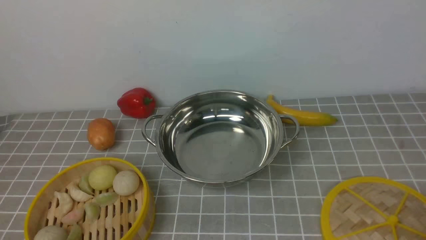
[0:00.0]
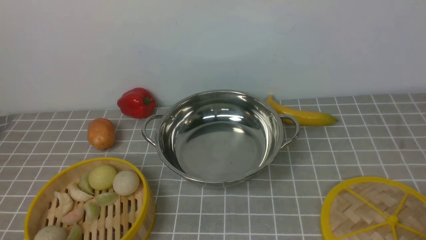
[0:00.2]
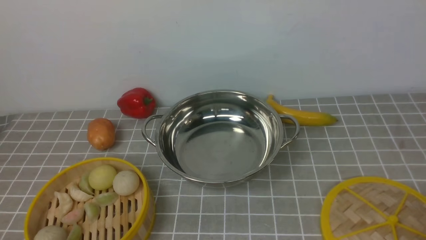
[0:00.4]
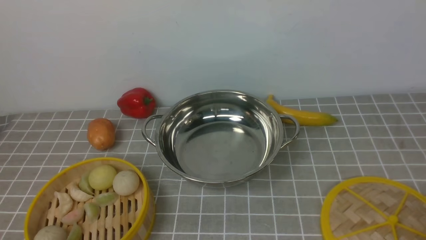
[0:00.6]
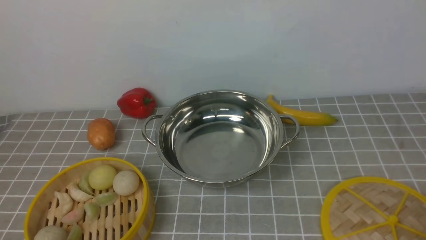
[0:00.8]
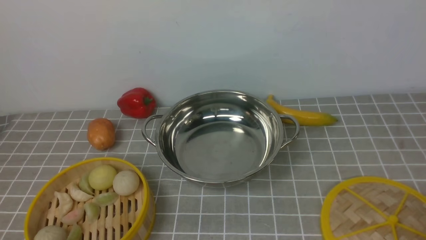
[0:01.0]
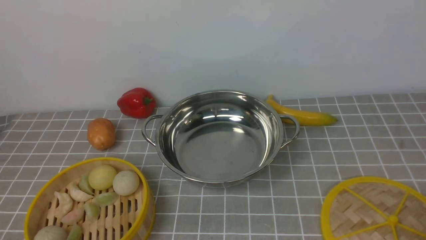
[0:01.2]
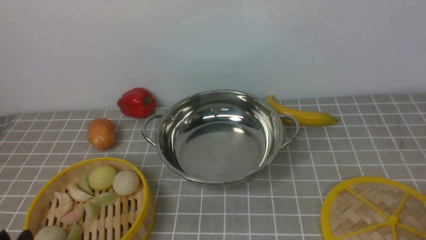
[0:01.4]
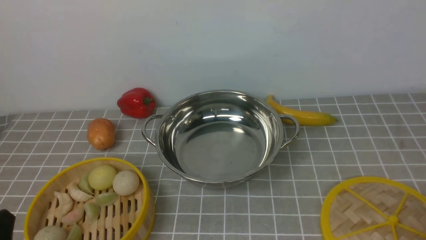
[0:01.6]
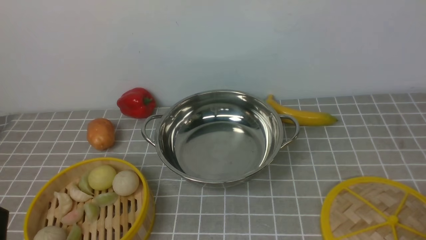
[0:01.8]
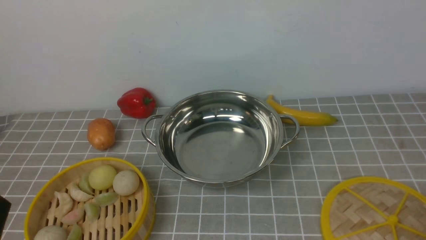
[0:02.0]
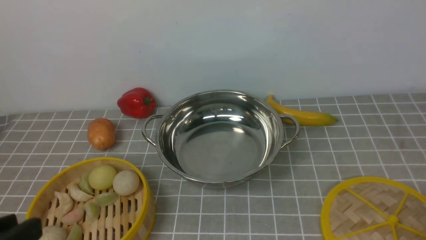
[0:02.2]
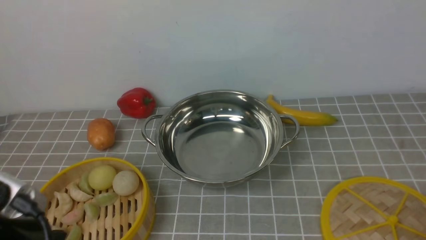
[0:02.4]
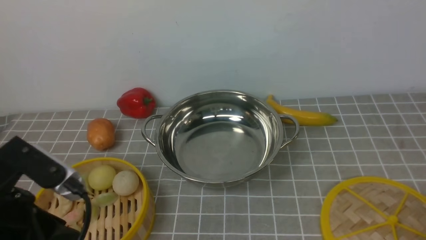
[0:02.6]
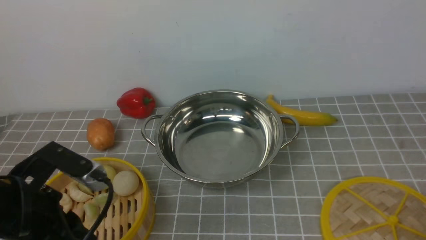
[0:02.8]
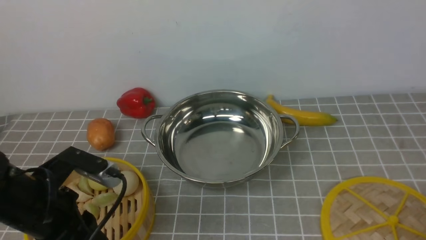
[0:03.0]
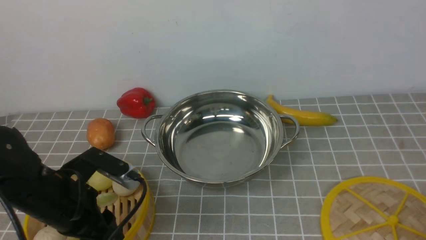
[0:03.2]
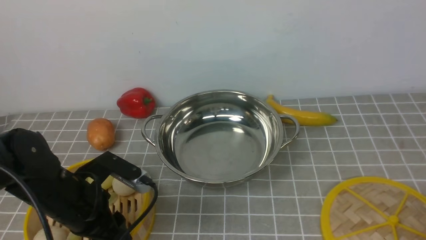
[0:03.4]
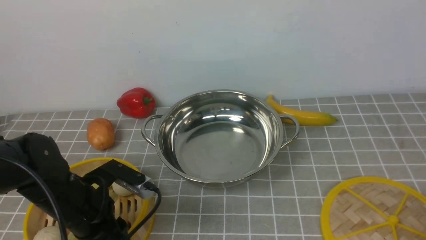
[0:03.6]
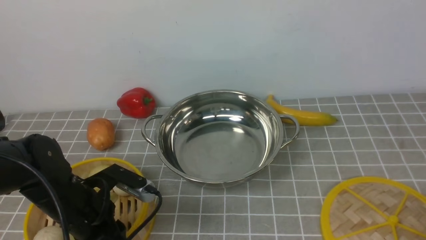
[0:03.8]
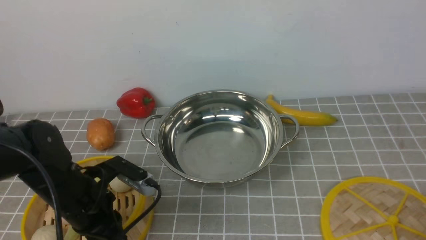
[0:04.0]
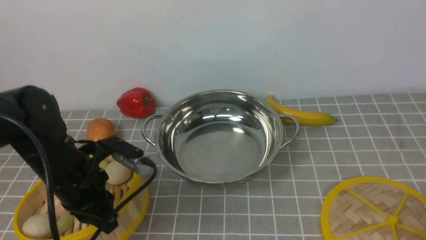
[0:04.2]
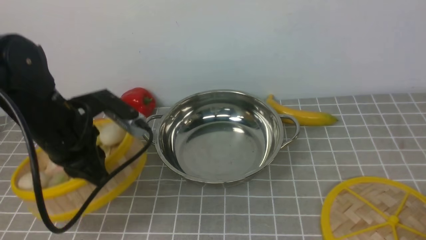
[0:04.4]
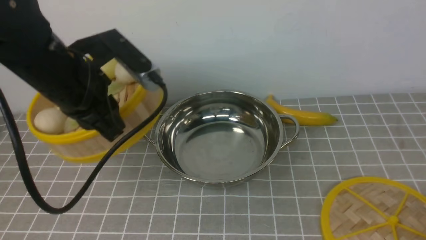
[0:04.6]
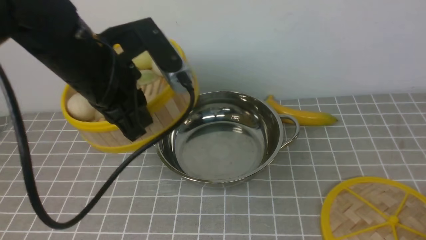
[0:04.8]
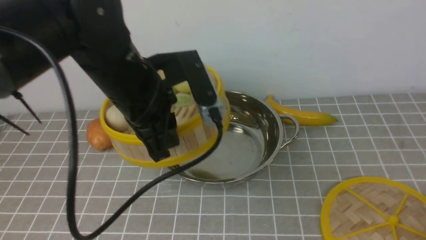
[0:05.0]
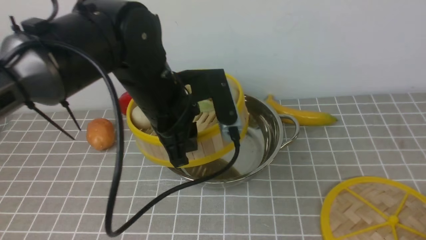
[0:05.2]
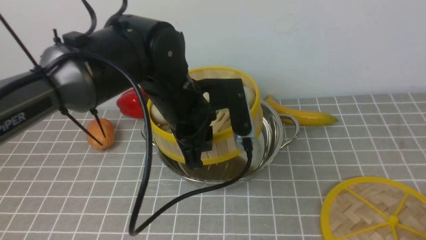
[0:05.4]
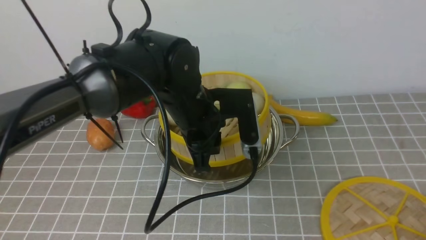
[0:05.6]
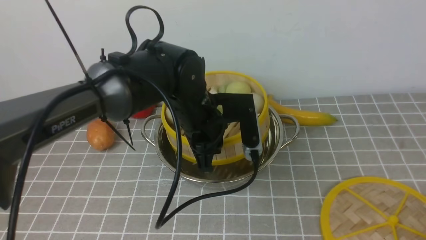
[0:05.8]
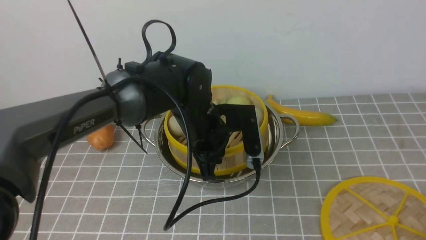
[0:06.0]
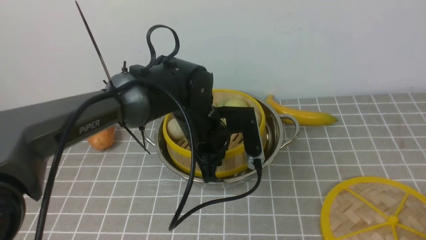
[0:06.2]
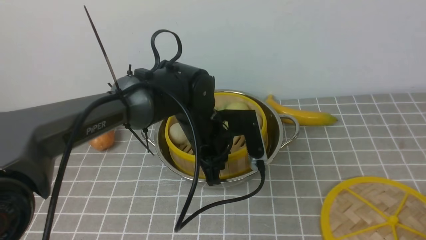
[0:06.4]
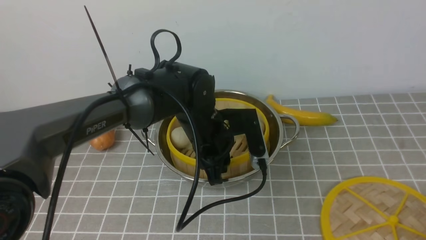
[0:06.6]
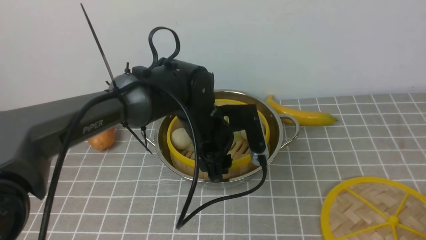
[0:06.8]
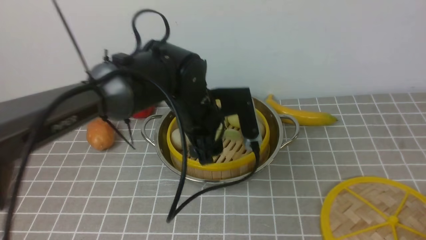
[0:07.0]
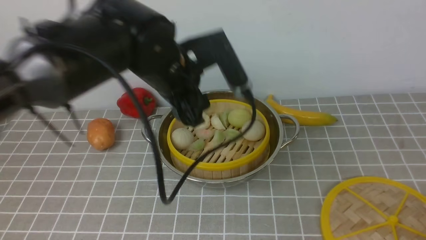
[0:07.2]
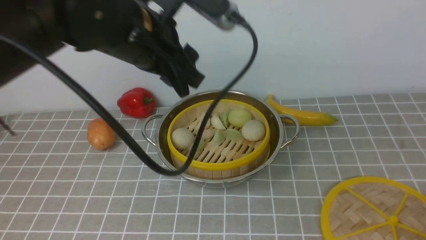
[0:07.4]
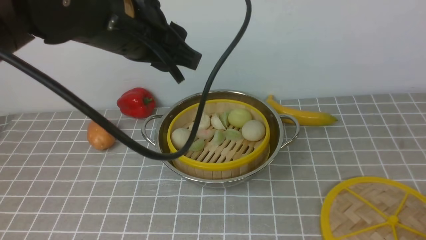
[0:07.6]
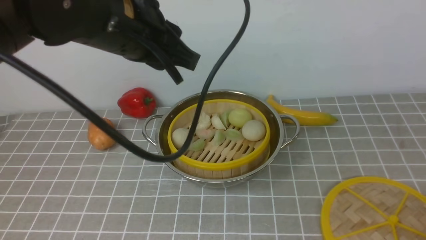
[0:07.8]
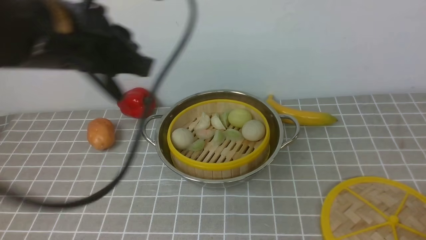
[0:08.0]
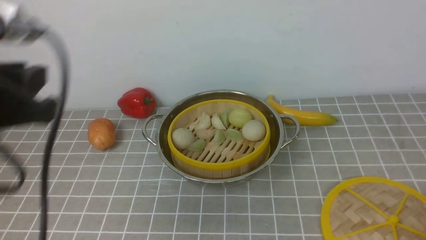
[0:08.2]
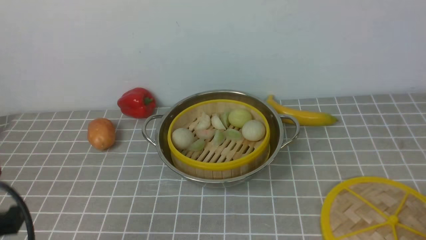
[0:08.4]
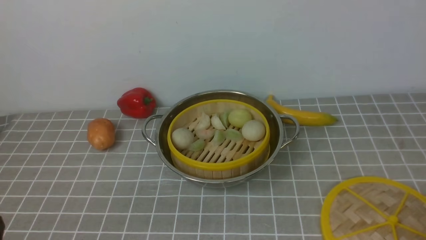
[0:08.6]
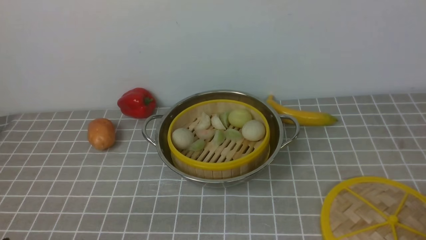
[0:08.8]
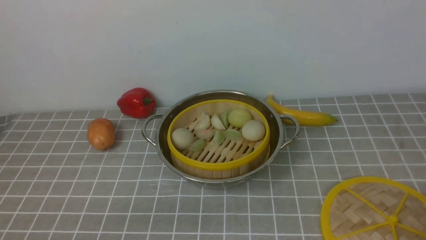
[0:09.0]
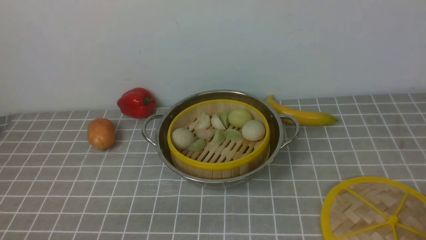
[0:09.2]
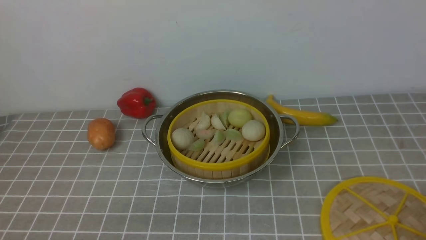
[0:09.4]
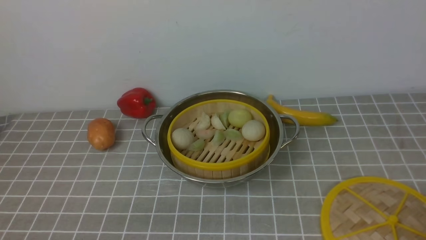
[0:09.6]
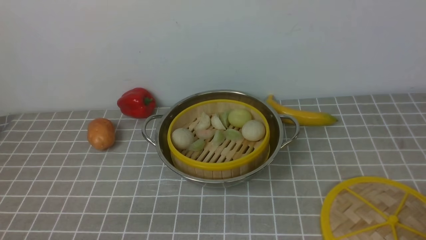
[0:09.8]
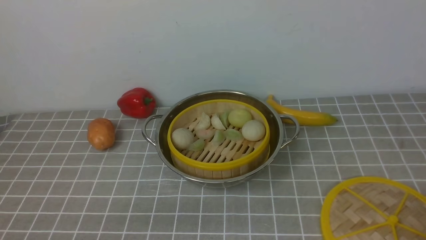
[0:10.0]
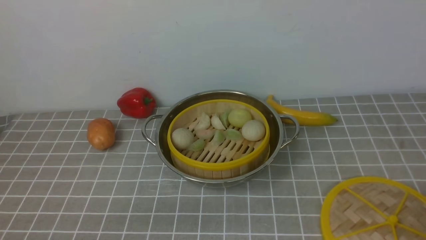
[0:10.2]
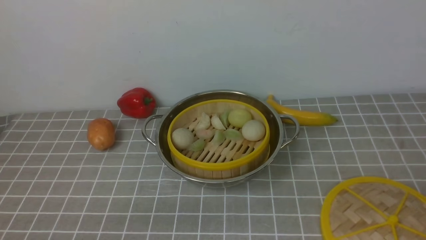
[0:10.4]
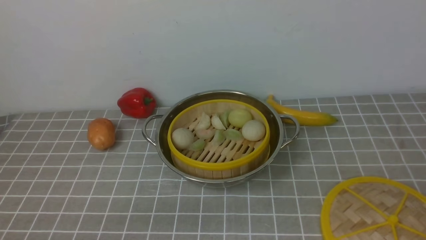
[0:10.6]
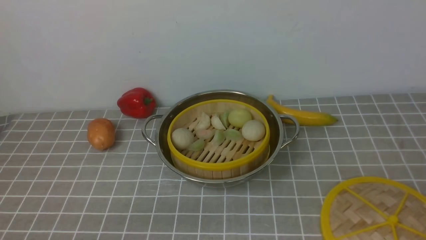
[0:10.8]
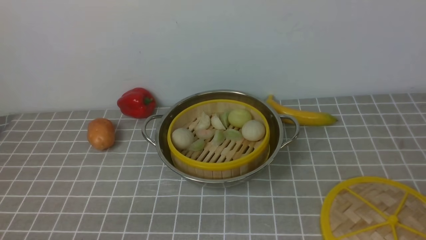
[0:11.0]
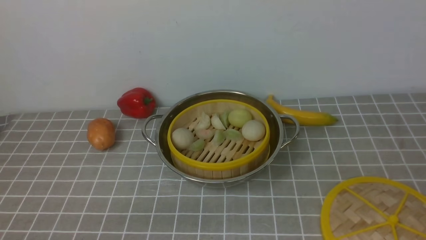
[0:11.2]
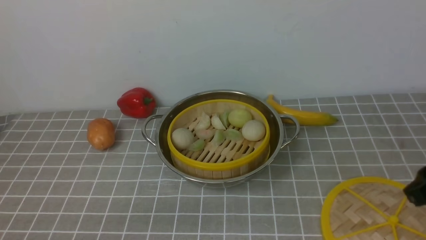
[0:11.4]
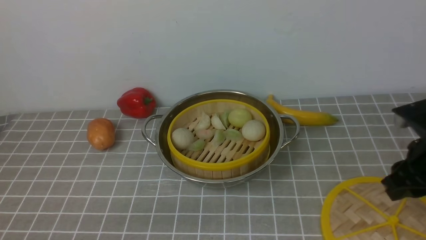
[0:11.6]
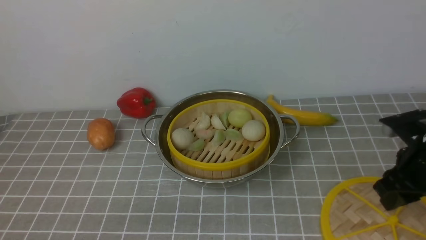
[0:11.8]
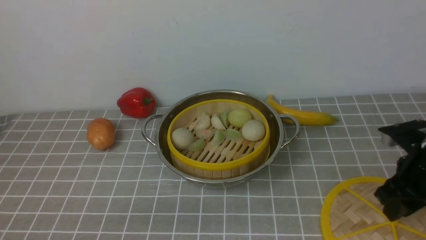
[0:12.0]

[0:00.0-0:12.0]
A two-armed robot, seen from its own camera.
Task of the whole recording: place the steamer in the pot on the grey tablecloth, and put the lid on the steamer.
Step, 0:00.0 to 0:04.0: use the left arm to lift the steamer closest to it.
Step, 0:04.4 to 0:06.8: use the left arm to put the steamer into the iron steamer pot in the middle.
0:01.6 to 0:03.0: The left gripper heads forward, covering some 15 cm.
0:03.0 to 0:04.4: The left gripper travels forward and upward by roughly 10 cm, and closes up.
0:04.4 to 0:06.0: The left gripper shifts approximately 15 cm to the right and downward.
0:06.0 to 0:07.6: The left gripper shifts approximately 20 cm upward, and opens its fingers.
0:07.6 to 0:09.0: The left gripper travels backward, downward and to the left by roughly 35 cm.
0:10.4 to 0:12.0: The right gripper goes some 25 cm forward.

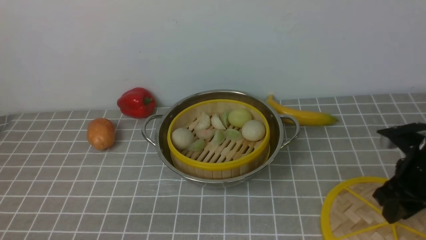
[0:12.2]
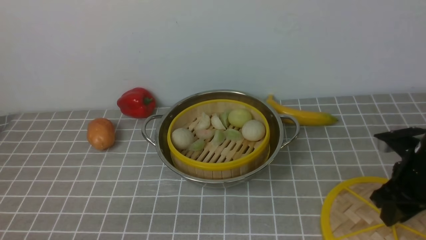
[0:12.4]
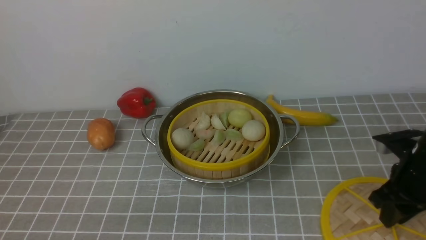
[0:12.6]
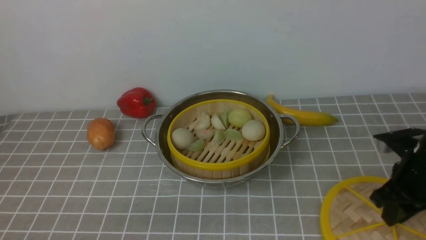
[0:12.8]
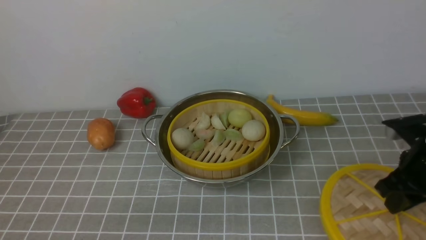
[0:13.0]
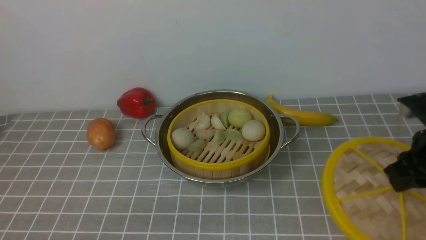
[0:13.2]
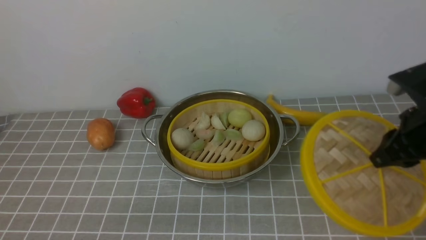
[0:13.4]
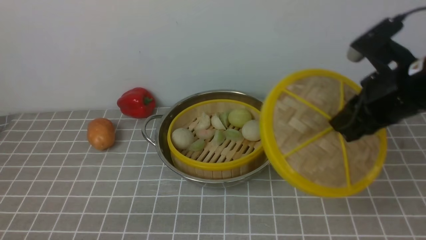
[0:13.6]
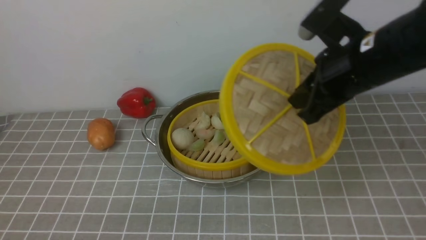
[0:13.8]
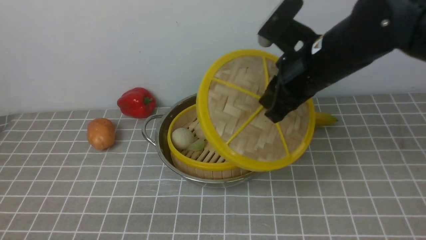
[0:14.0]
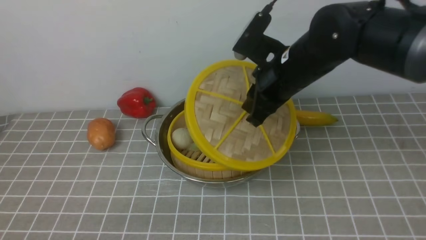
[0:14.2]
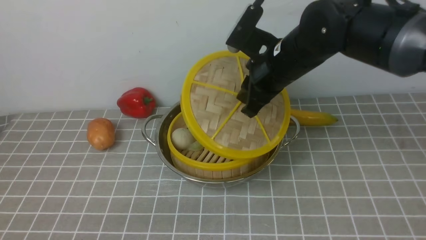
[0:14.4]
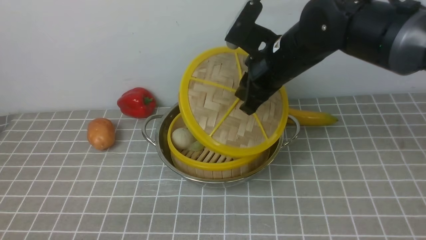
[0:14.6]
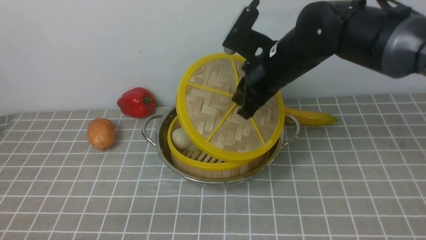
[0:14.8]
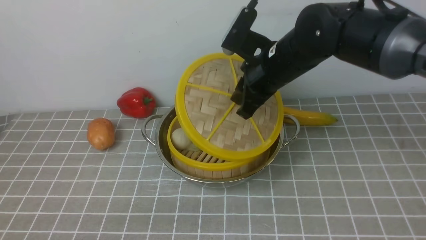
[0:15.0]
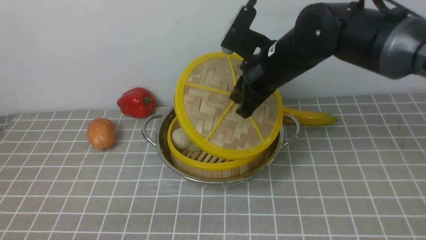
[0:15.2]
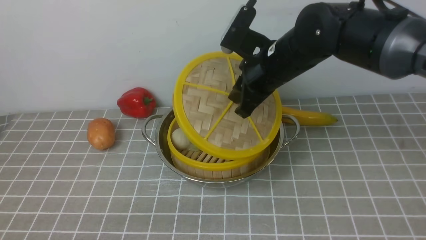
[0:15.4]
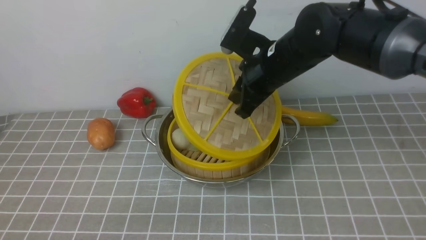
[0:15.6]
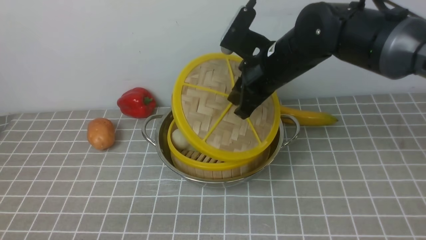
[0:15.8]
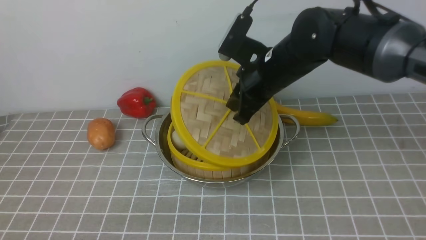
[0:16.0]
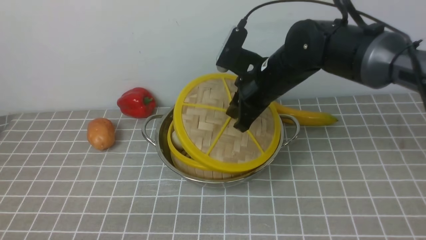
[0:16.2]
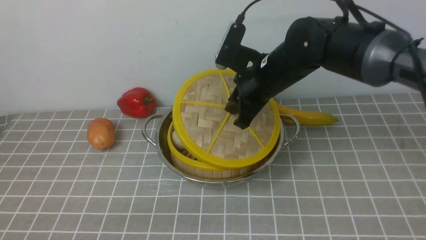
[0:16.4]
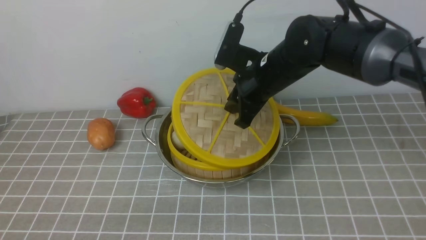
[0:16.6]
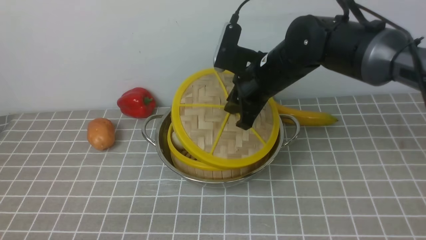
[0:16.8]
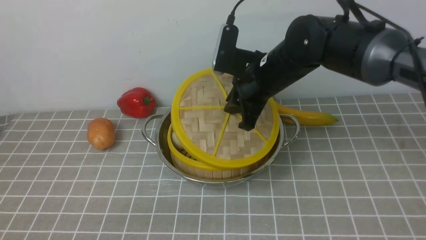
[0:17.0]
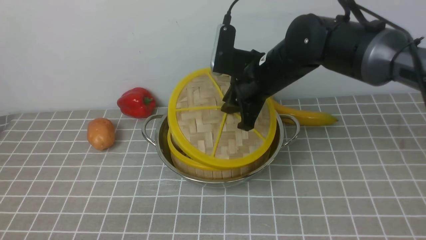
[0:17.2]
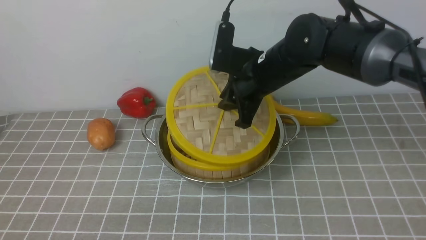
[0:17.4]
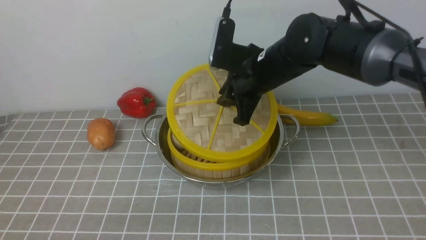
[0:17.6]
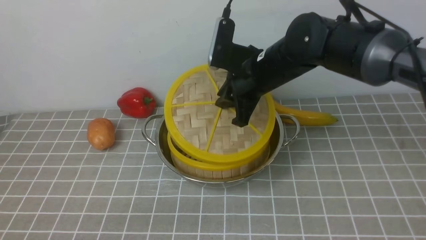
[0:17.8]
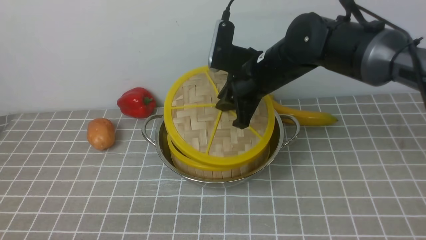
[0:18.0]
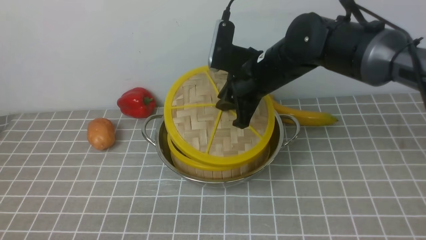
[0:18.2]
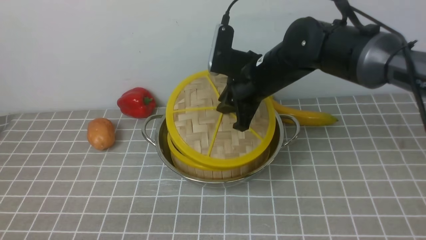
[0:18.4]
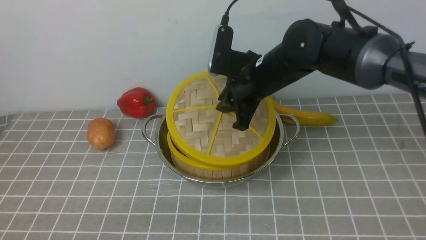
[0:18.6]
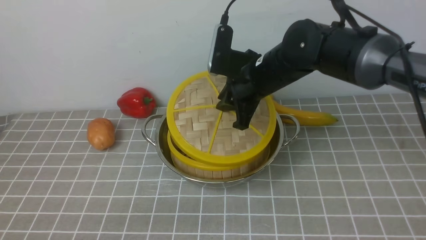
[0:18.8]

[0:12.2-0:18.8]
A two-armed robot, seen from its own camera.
Task of the whole recording: place the steamer in the pot on the grey tablecloth, and put the lid on the steamer.
0:12.2 to 0:13.8: The right gripper moves upward and to the left, some 20 cm, and closes up.
0:13.8 to 0:15.4: The right gripper heads to the left and forward, covering about 10 cm.
0:15.4 to 0:17.2: The grippers move only a little.
0:17.2 to 0:18.8: Both grippers stay put.
